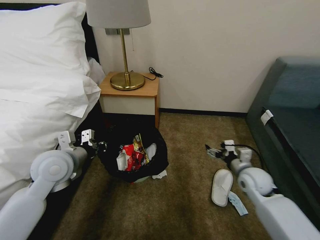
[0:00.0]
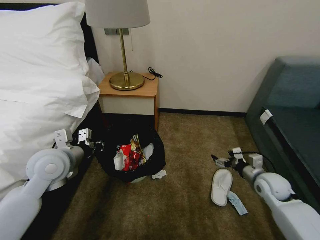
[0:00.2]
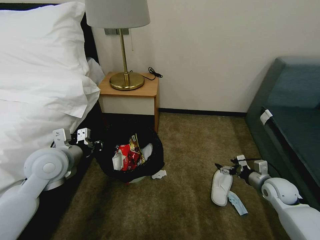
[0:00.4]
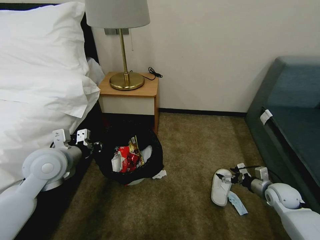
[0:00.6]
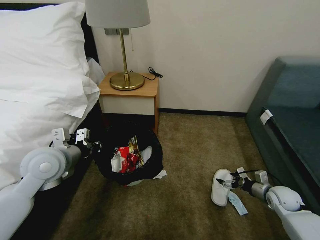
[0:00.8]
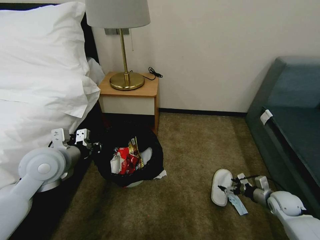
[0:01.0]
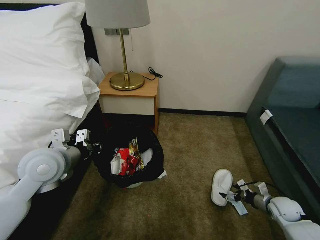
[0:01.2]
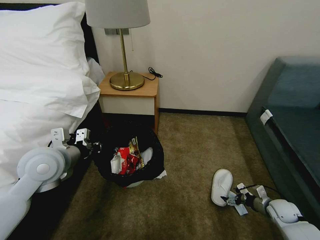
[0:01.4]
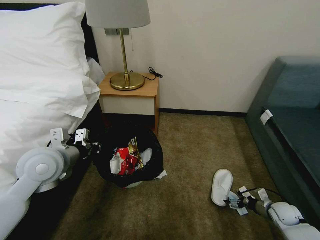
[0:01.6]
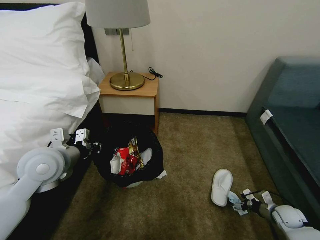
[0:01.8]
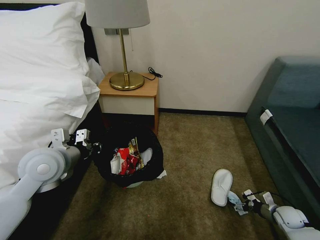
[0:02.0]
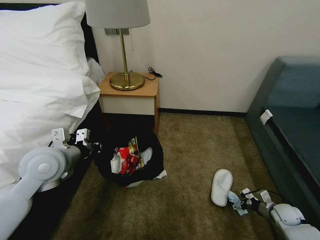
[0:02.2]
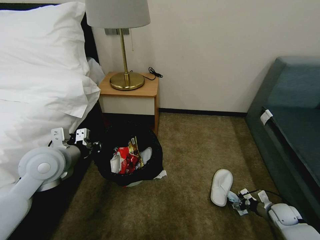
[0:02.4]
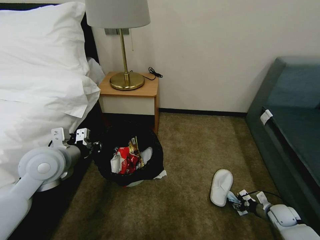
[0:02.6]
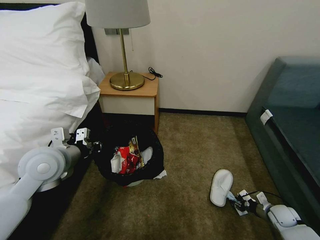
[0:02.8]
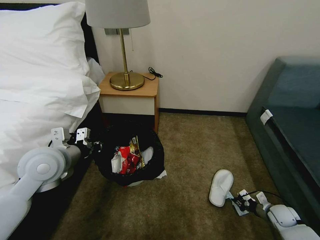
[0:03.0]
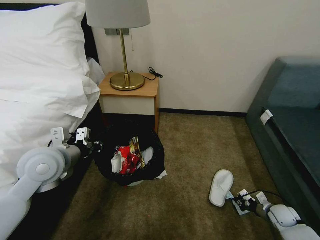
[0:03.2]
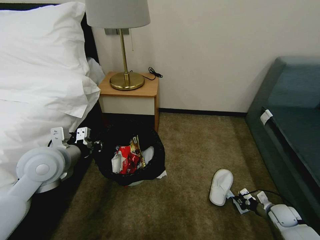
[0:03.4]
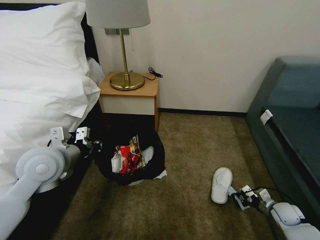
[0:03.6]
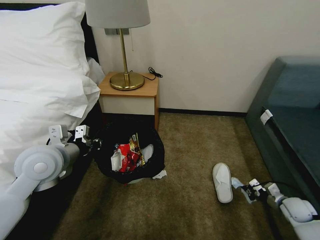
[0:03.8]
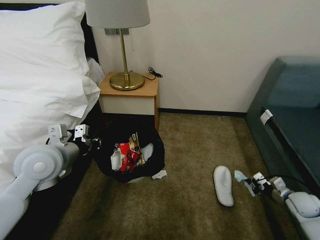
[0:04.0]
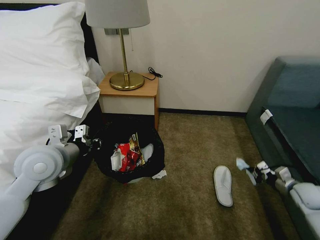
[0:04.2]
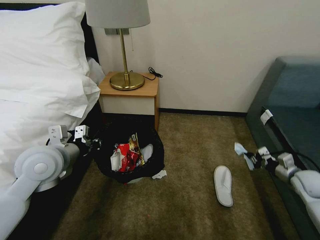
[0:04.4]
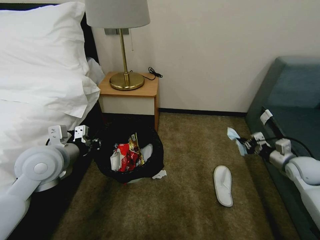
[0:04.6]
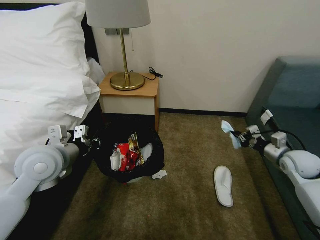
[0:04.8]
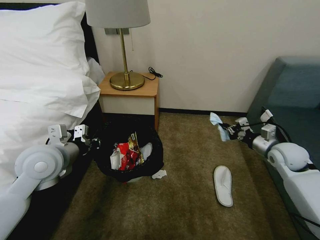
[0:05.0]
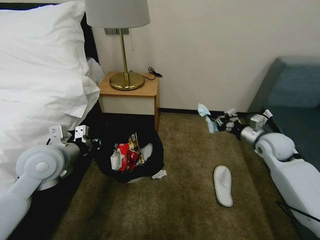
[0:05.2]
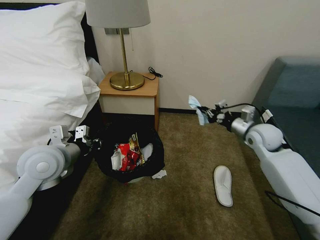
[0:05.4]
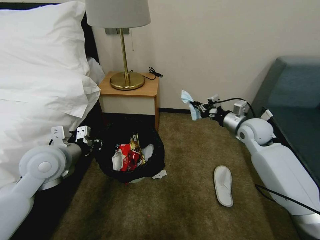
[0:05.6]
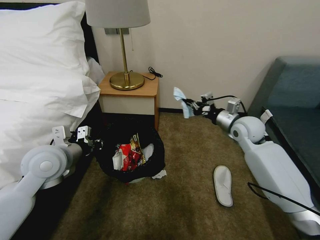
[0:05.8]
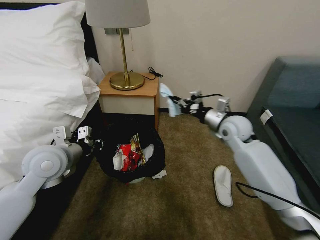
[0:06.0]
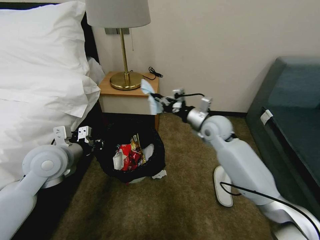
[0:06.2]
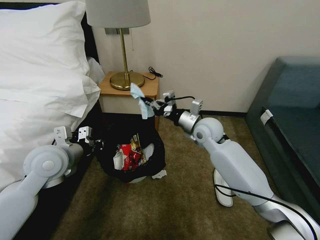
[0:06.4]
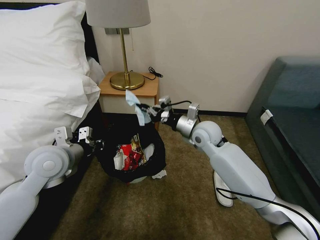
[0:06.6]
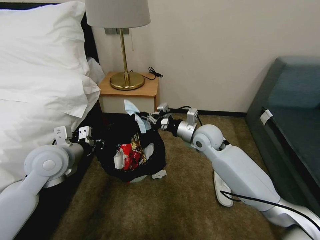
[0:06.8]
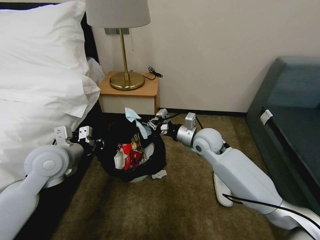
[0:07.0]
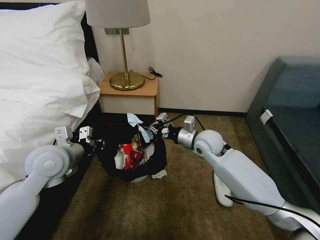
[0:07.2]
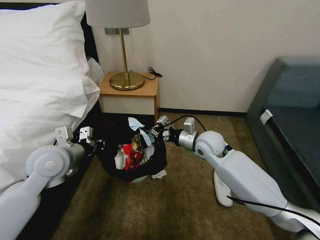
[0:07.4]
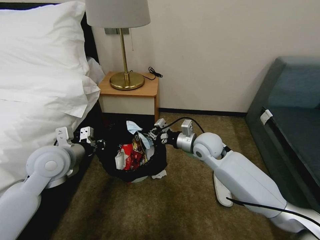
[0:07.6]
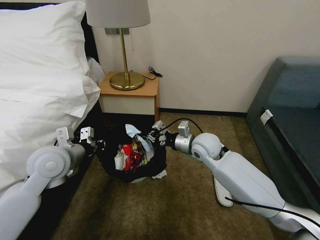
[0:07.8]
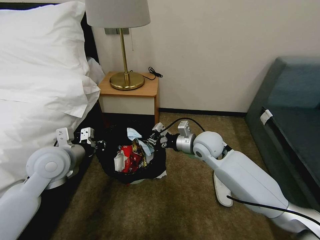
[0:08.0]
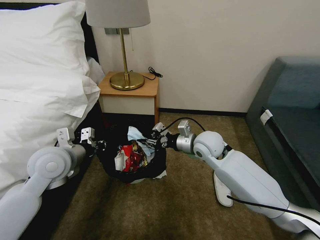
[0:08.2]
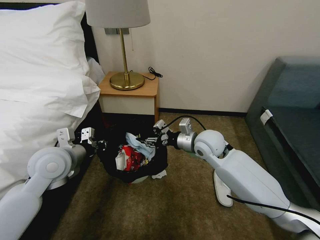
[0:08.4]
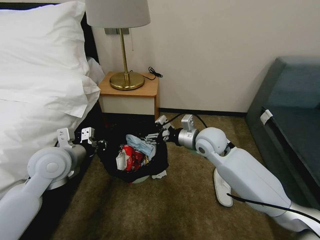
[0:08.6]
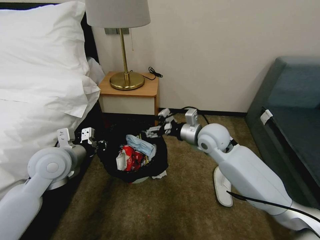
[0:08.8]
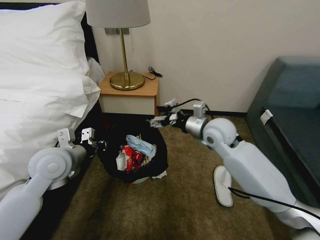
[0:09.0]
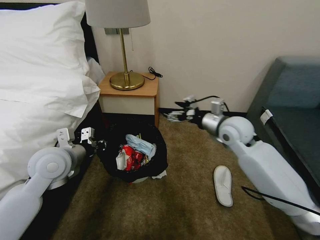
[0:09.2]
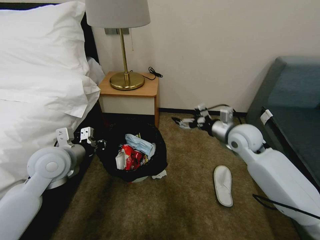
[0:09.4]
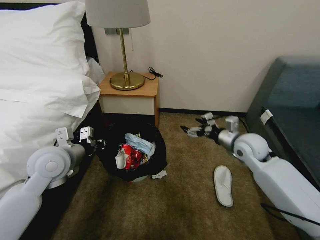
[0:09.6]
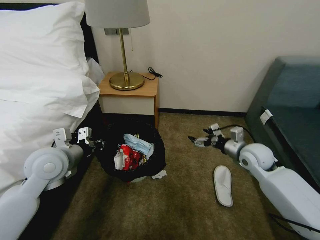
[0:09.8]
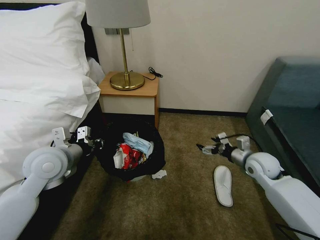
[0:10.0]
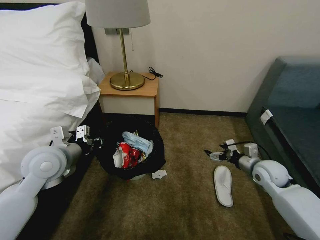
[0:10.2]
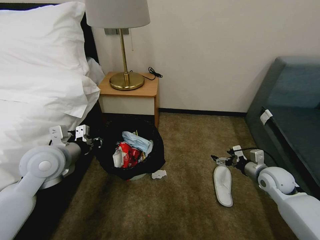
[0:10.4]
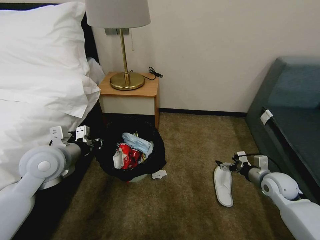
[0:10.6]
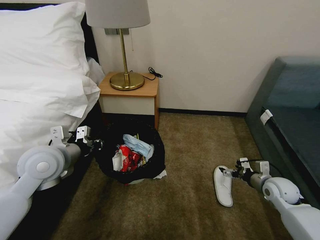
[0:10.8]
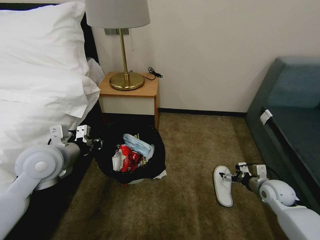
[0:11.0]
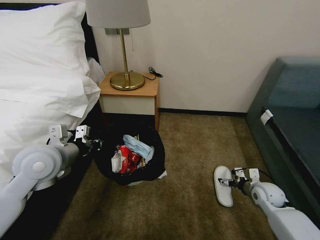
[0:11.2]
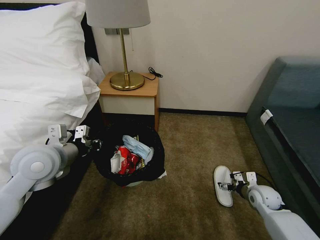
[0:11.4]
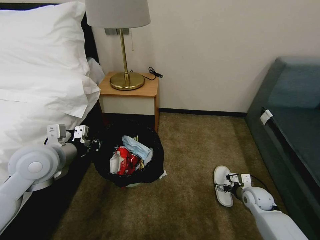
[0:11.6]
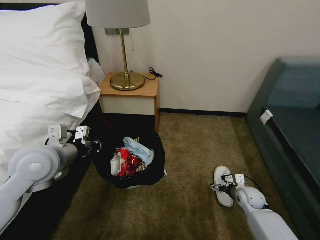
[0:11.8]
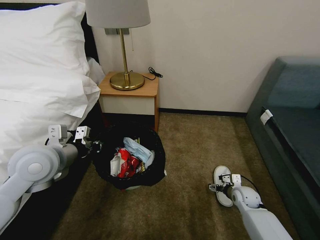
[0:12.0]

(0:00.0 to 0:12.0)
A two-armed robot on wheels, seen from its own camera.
Task of the whole recording: Pick up the trash bin, then pick up the garbage on the floor and place it into the trash bin.
0:00.0 - 0:01.6: The right gripper goes some 25 cm to the right, downward and backward.
0:01.6 - 0:03.0: The right gripper closes.
0:03.0 - 0:04.4: The right gripper moves upward, roughly 15 cm.
0:04.4 - 0:06.0: The right gripper moves to the left, upward and forward, some 35 cm.
0:06.0 - 0:07.6: The right gripper heads to the left, covering some 10 cm.
0:07.6 - 0:09.0: The right gripper heads upward, covering about 5 cm, and opens up.
0:09.0 - 0:10.4: The right gripper heads to the right, downward and backward, covering about 30 cm.
0:10.4 - 0:12.0: The right gripper heads downward, covering approximately 15 cm.

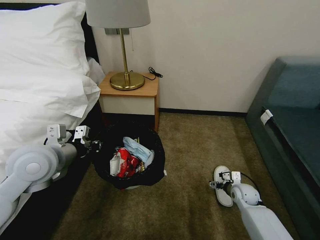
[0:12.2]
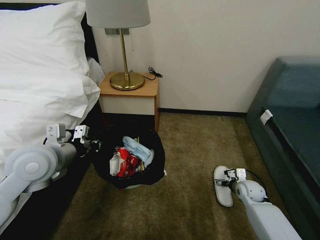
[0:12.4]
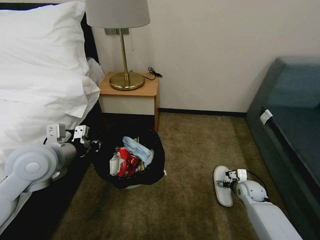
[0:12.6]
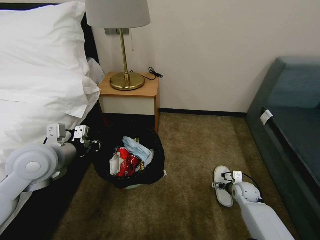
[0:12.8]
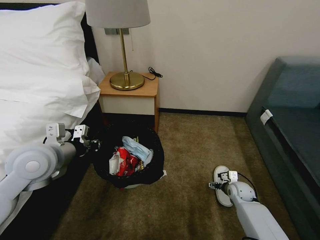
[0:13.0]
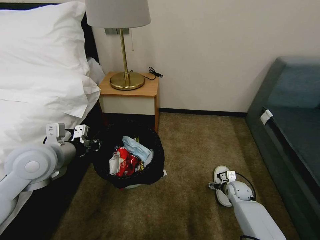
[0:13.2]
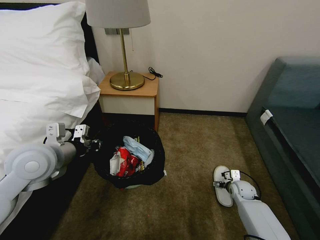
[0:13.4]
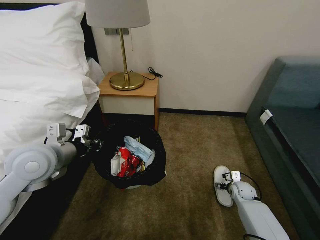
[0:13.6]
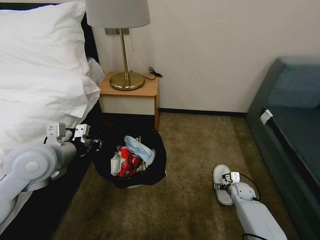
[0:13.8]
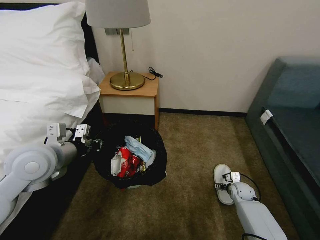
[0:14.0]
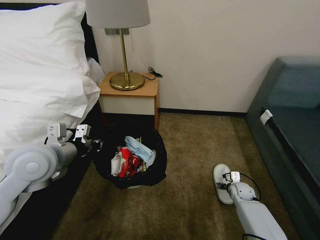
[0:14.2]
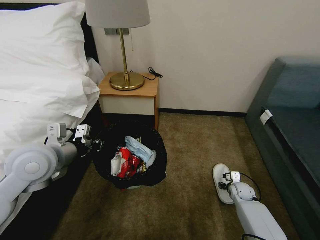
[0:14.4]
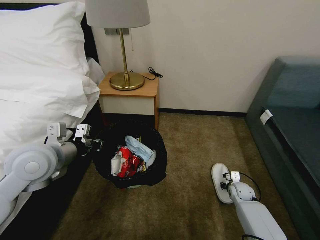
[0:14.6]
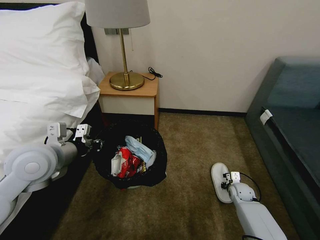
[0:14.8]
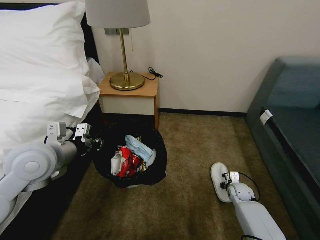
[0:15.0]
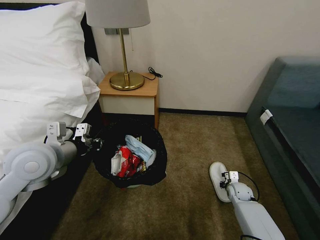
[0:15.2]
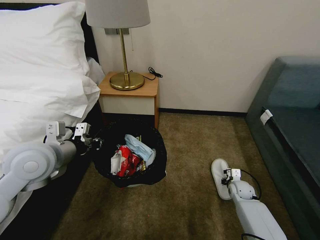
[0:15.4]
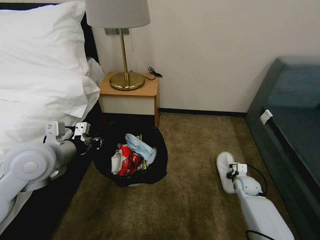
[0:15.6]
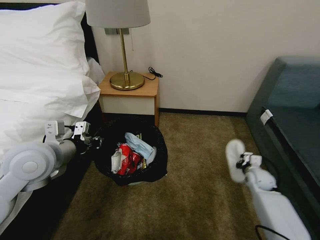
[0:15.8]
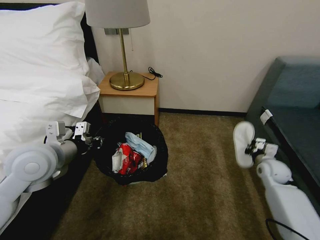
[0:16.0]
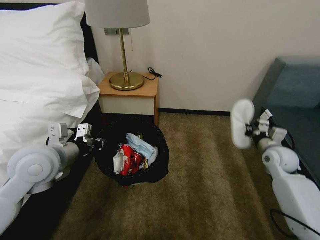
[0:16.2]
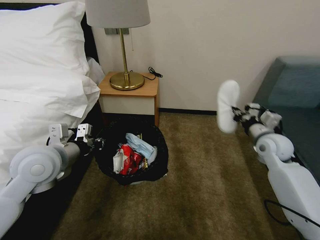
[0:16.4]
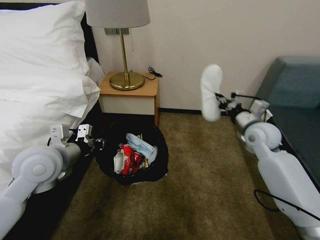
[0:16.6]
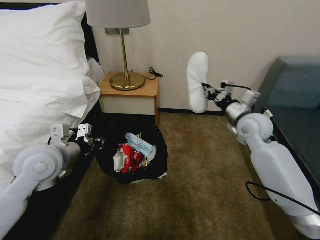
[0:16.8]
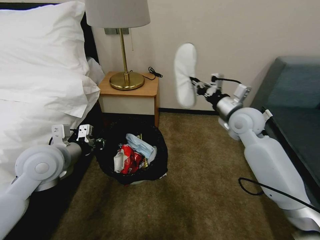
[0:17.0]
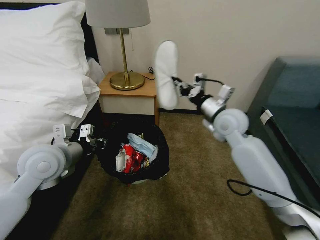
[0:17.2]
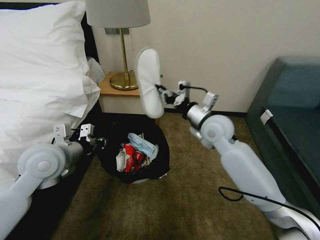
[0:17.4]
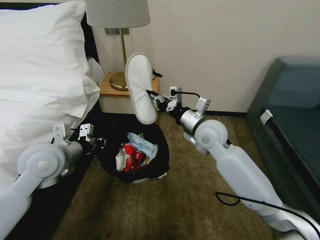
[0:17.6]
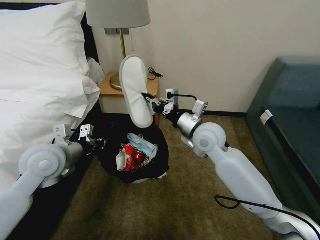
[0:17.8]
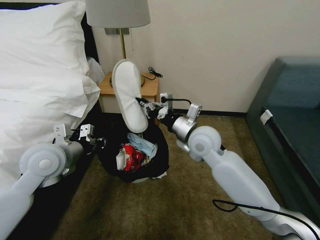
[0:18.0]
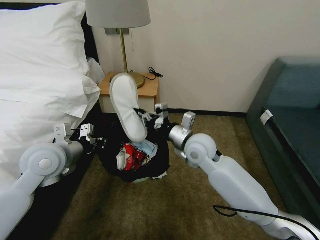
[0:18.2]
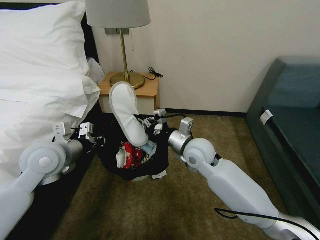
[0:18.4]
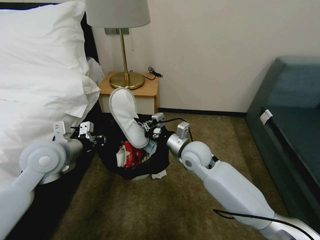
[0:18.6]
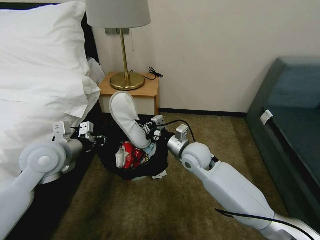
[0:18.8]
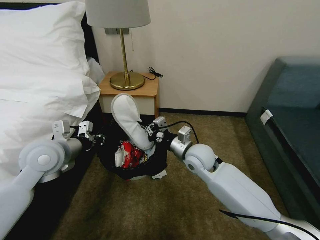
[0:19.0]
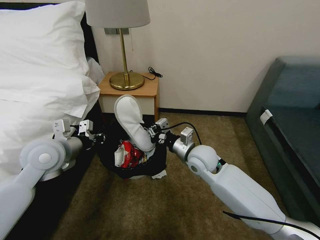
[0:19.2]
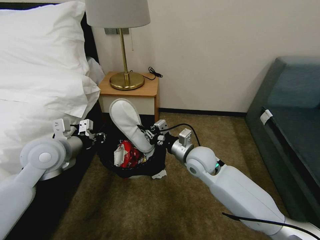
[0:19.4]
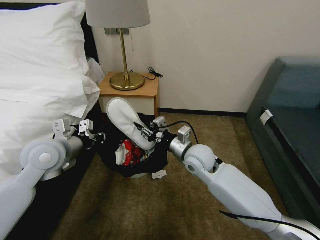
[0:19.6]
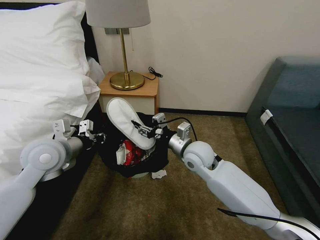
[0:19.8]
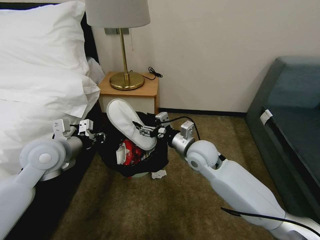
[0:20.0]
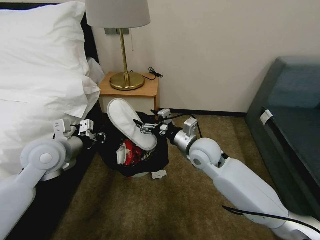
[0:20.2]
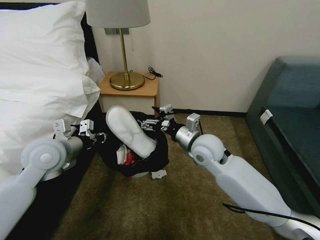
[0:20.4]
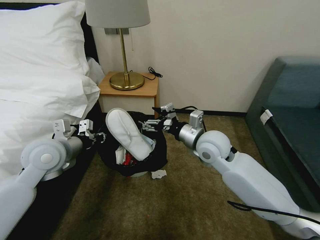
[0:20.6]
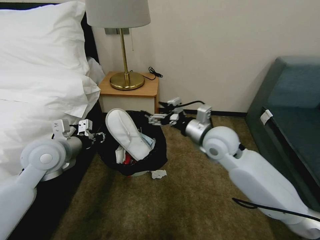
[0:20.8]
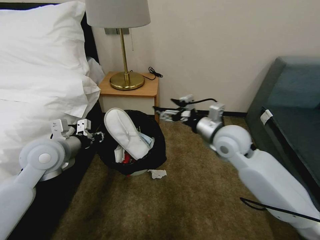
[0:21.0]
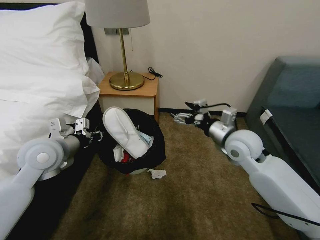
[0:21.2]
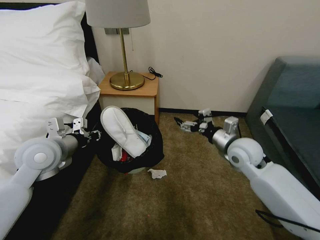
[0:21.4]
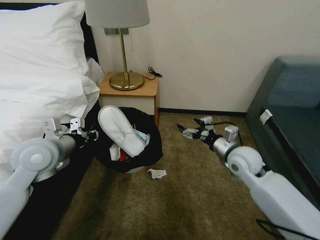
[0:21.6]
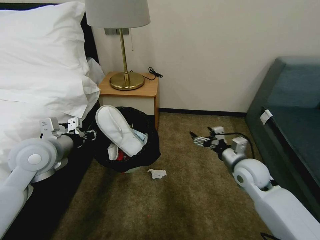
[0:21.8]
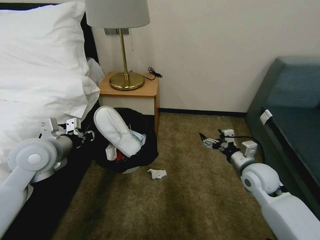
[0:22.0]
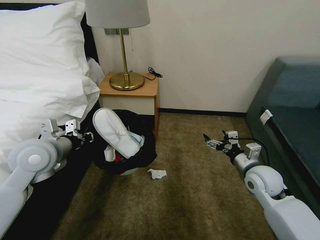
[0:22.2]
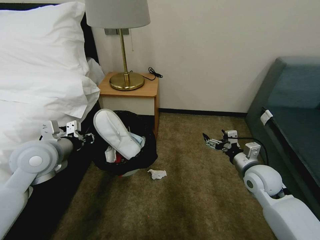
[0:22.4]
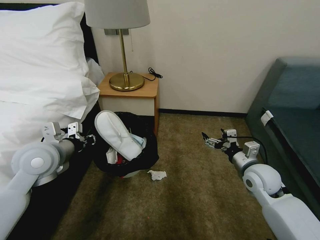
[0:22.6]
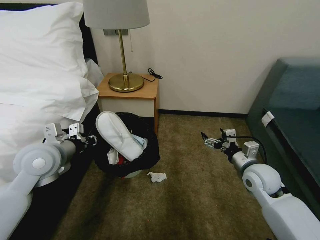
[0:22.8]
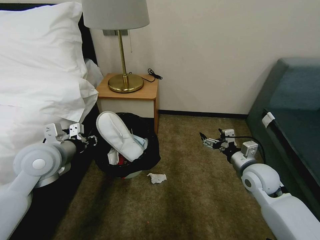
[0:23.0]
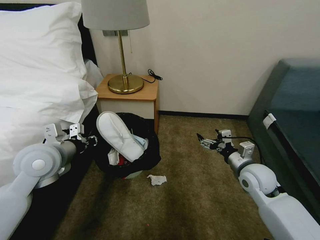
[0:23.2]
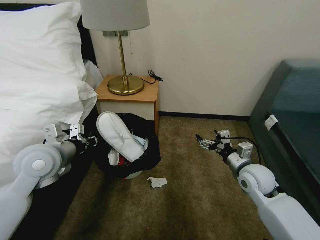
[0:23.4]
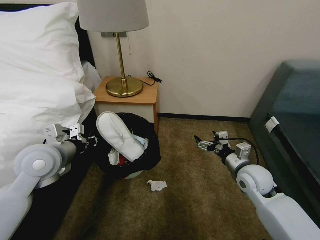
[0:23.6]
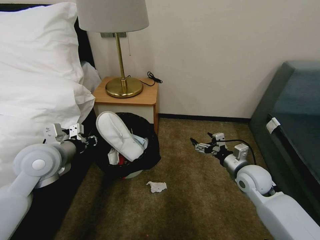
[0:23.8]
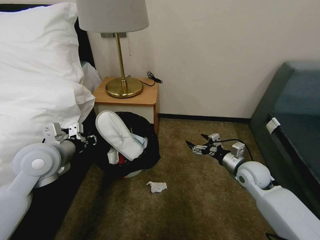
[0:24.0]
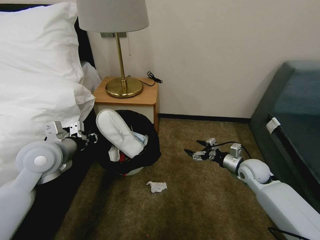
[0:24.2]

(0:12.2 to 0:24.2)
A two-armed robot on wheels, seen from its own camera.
Task of the whole recording: Pick up the trash bin, then pick up the garbage on the floor and place it into the trash bin.
0:12.2 - 0:13.8: The right gripper moves approximately 5 cm.
0:13.8 - 0:15.2: The right gripper closes.
0:15.2 - 0:16.6: The right gripper is displaced upward by about 30 cm.
0:16.6 - 0:18.2: The right gripper travels to the left by approximately 20 cm.
0:18.2 - 0:19.8: The right gripper opens up.
0:19.8 - 0:21.2: The right gripper is displaced to the right and upward by approximately 15 cm, and opens its fingers.
0:21.2 - 0:22.6: The right gripper is displaced downward, to the right and backward by approximately 15 cm.
0:22.6 - 0:24.2: The right gripper moves downward and forward, some 10 cm.
